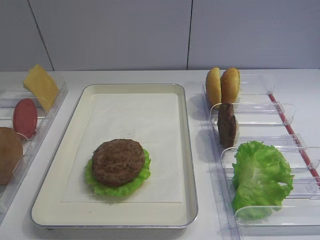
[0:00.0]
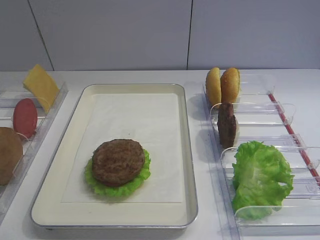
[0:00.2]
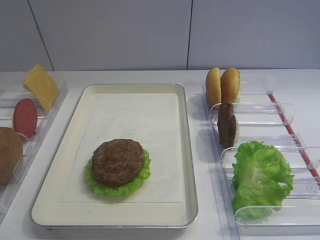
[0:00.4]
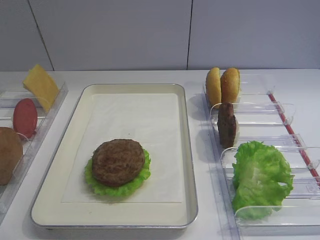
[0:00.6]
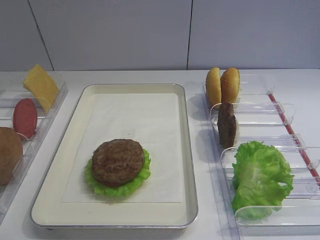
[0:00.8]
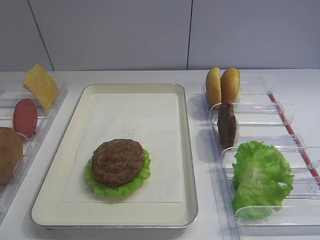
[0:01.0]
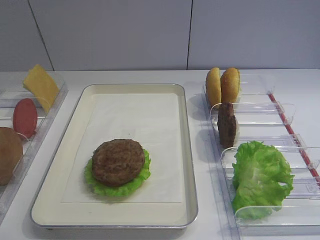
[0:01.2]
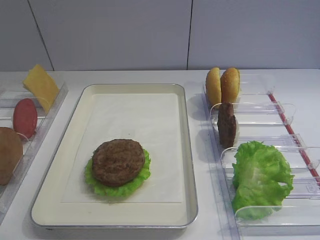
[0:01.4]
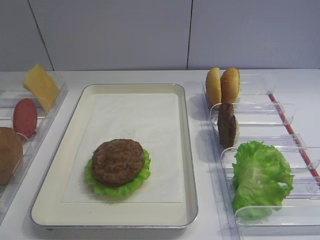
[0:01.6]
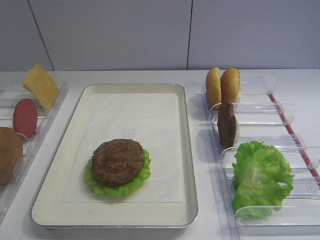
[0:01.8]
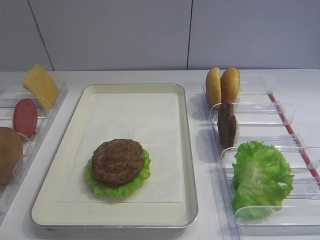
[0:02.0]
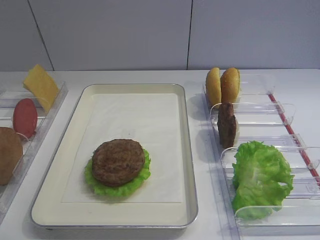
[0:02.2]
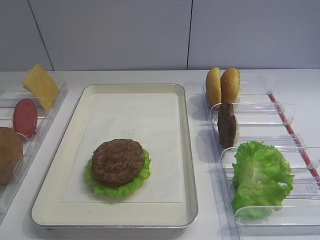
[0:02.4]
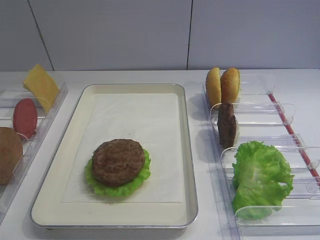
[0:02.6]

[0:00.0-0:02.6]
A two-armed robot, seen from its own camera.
0.0 to 2.6 s: Both grippers stay about where they are.

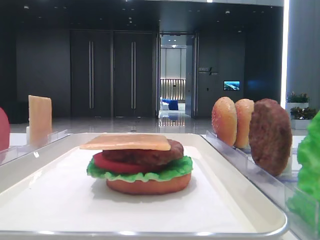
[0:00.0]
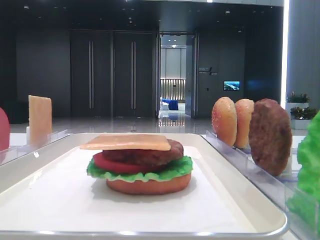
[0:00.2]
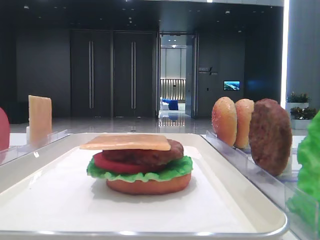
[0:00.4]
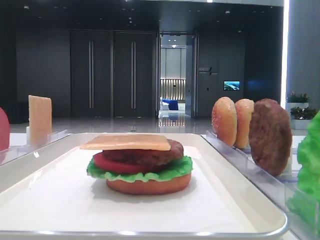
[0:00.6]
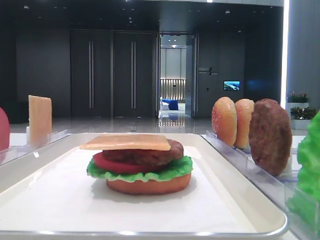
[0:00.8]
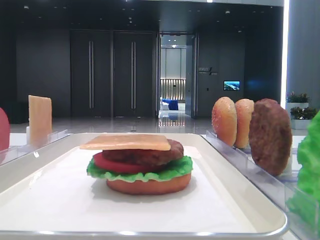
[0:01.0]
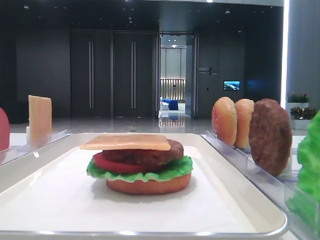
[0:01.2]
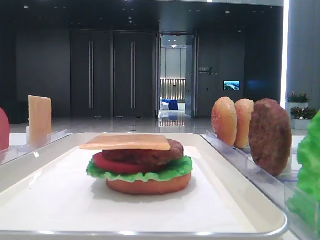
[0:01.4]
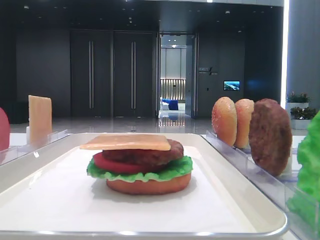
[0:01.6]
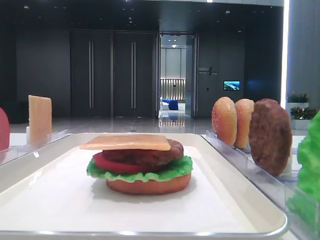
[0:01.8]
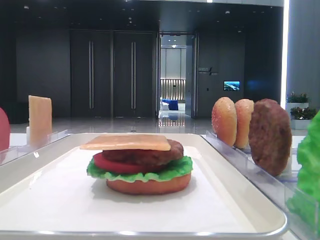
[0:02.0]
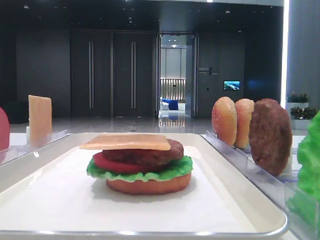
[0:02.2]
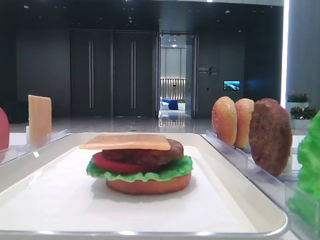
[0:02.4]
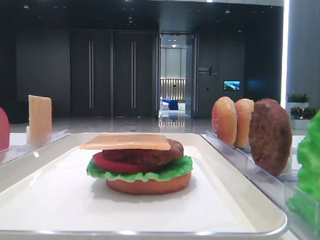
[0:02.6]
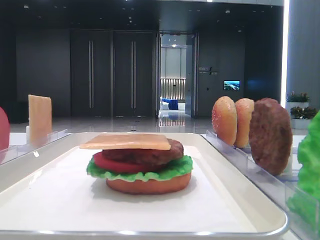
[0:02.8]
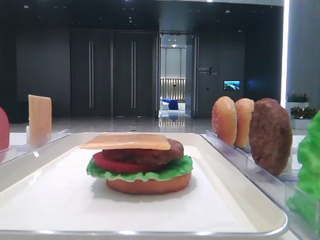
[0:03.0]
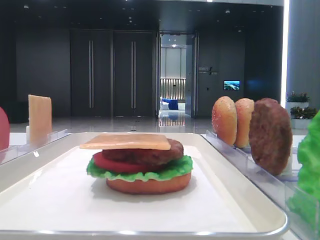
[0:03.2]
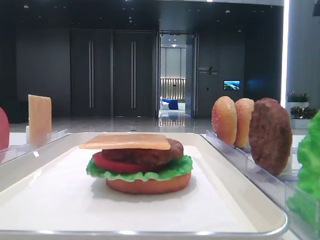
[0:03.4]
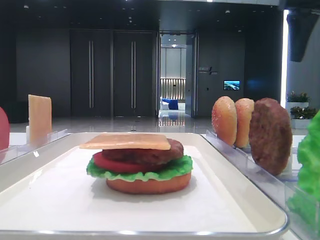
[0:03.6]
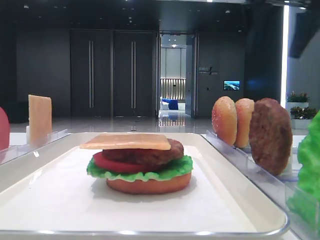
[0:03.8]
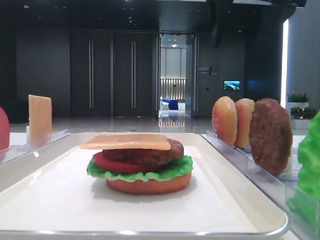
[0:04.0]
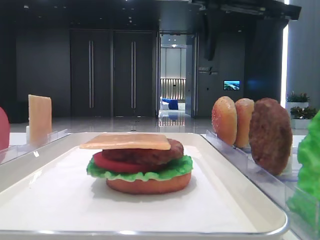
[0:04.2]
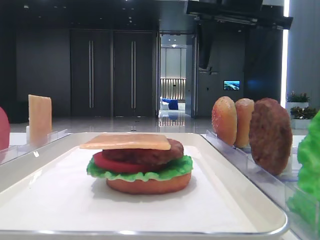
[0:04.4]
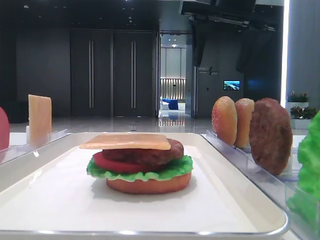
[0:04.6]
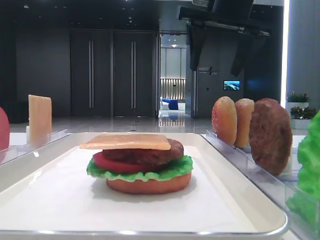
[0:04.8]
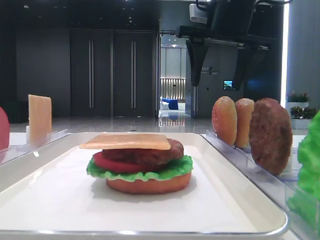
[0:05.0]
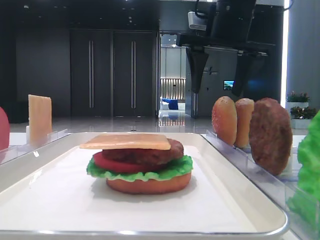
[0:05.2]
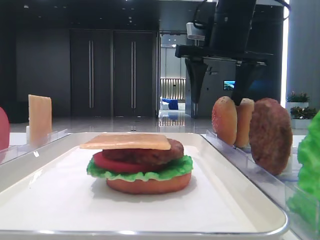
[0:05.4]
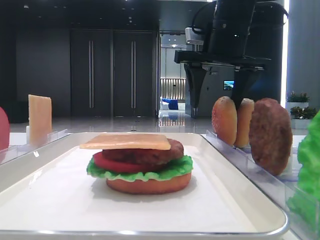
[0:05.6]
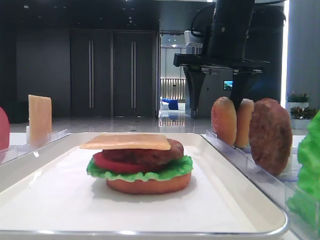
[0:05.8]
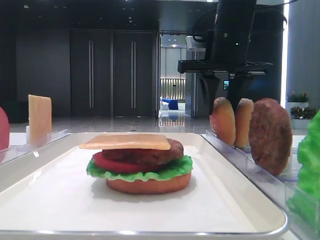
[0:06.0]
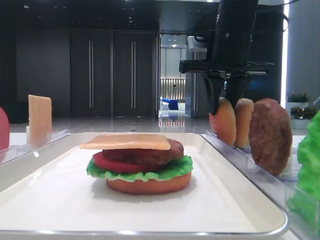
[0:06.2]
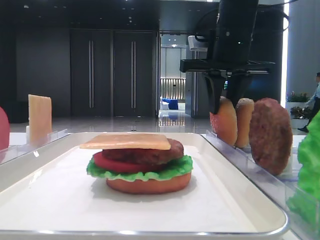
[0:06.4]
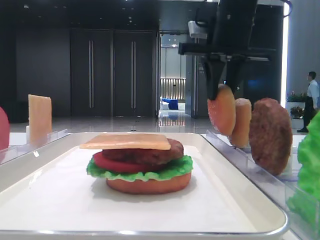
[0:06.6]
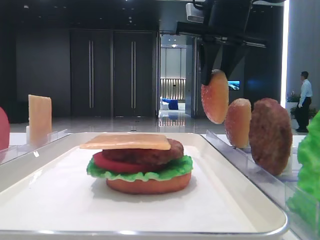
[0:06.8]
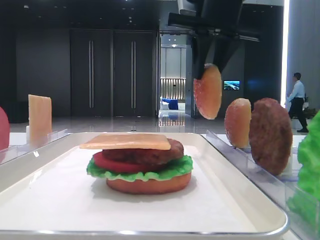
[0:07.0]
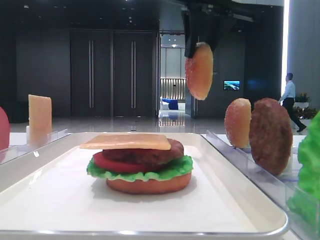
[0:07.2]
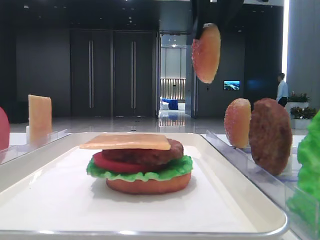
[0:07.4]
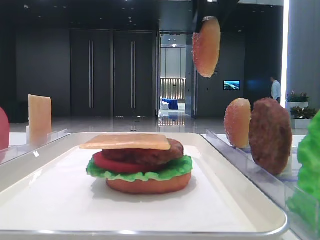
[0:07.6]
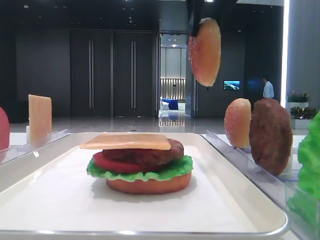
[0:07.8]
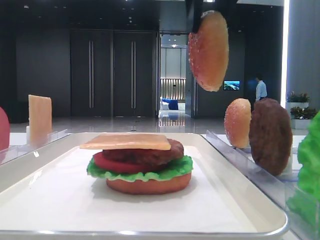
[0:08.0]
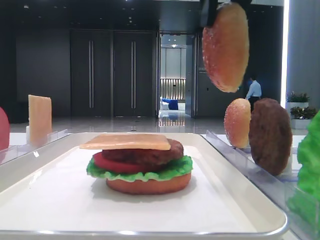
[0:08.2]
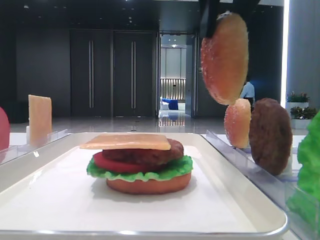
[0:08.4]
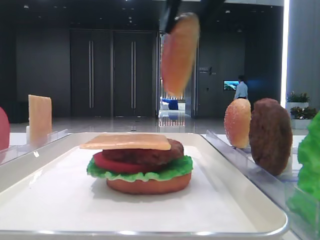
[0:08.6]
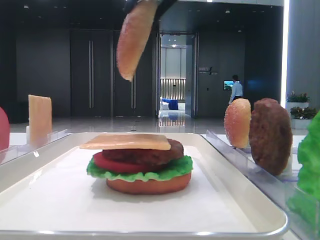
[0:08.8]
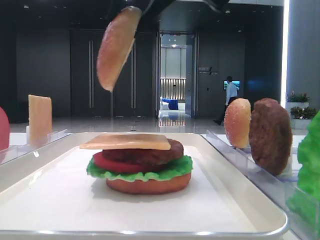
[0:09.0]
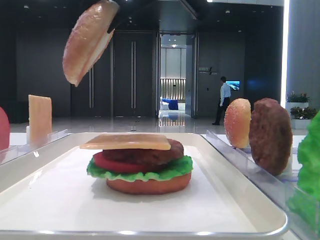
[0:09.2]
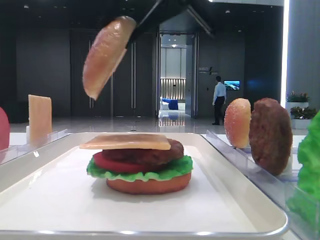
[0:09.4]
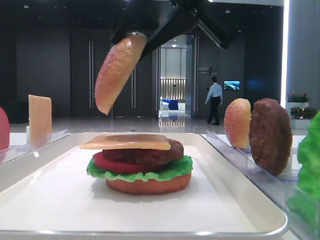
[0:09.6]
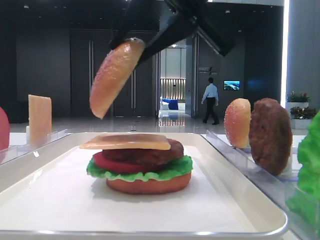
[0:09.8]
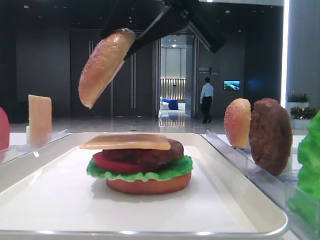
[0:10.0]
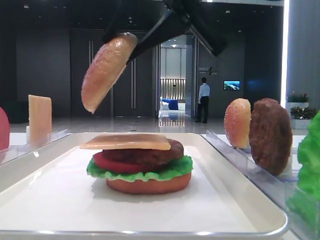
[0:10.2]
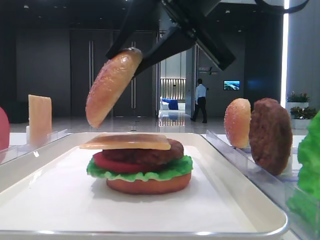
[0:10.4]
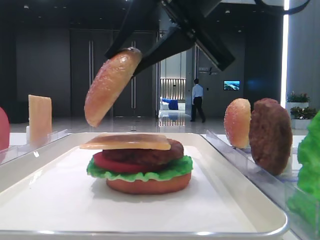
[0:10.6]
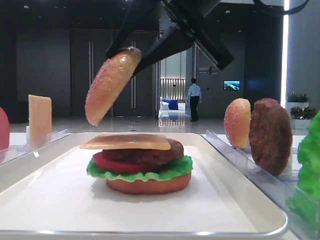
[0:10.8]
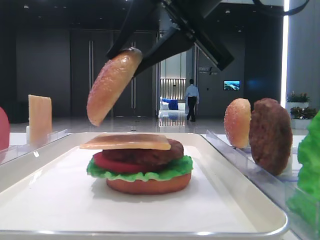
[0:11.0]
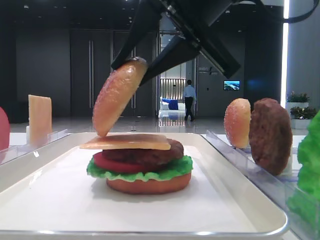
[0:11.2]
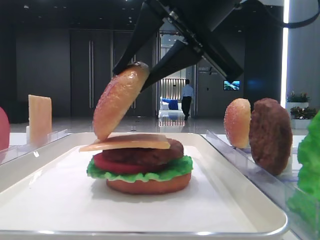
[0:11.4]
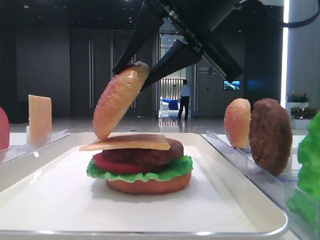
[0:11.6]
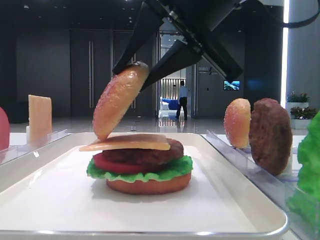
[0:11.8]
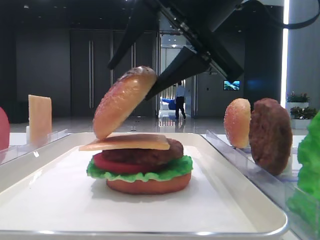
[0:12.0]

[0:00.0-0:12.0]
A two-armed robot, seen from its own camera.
Step, 0.0 to 6.2 s: Pick up the top bread slice with the right hand.
3.0 to 4.4 s: The right gripper shifts roughly 20 cm to the left.
4.4 to 6.0 s: The right gripper heads downward, covering about 5 cm, and closes its fingers.
6.0 to 7.6 s: The right gripper moves upward and backward, some 15 cm.
7.6 to 9.0 s: The right gripper shifts approximately 10 cm backward and to the left.
9.0 to 10.4 s: The right gripper is displaced downward by approximately 5 cm.
10.4 to 12.0 s: The right gripper opens up.

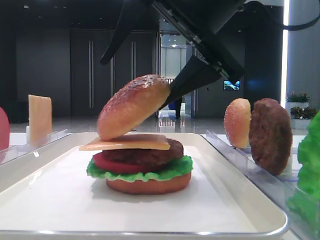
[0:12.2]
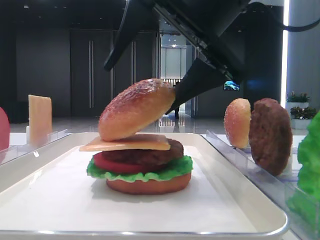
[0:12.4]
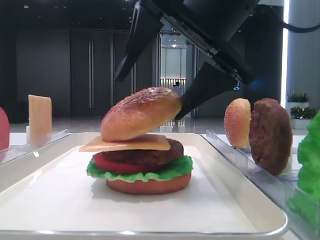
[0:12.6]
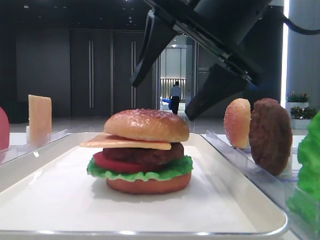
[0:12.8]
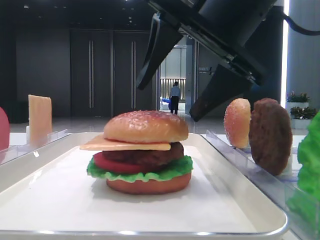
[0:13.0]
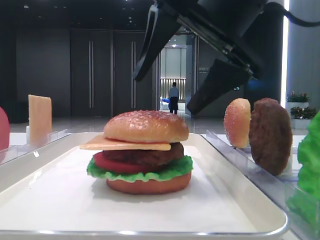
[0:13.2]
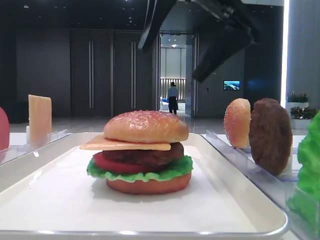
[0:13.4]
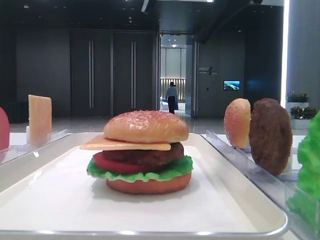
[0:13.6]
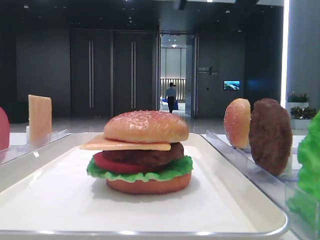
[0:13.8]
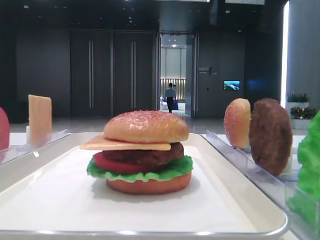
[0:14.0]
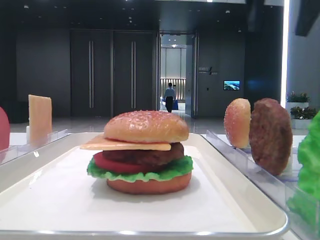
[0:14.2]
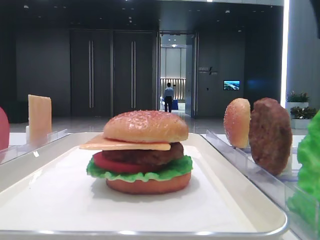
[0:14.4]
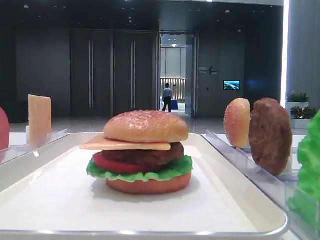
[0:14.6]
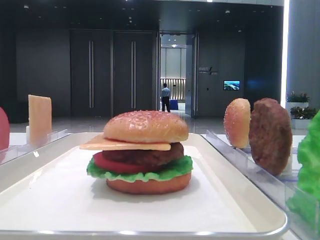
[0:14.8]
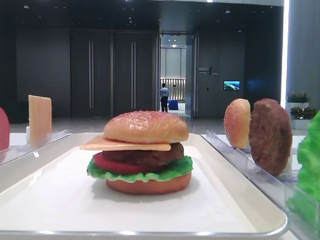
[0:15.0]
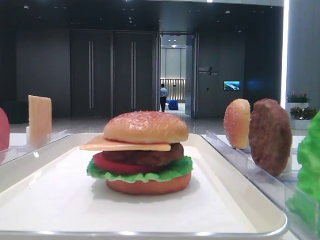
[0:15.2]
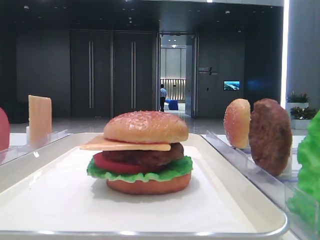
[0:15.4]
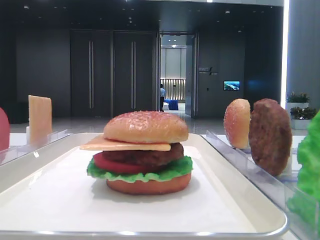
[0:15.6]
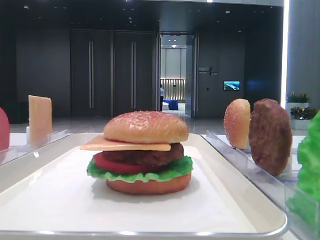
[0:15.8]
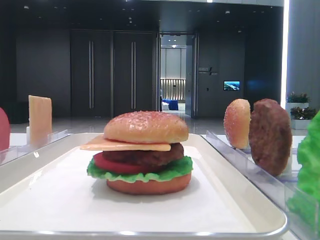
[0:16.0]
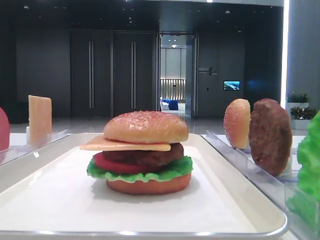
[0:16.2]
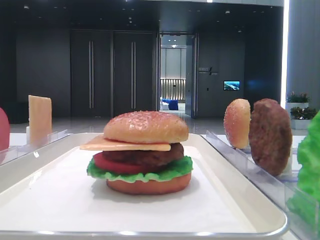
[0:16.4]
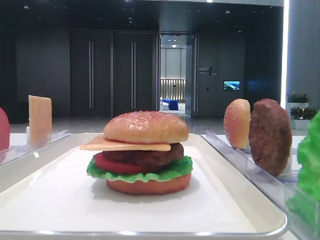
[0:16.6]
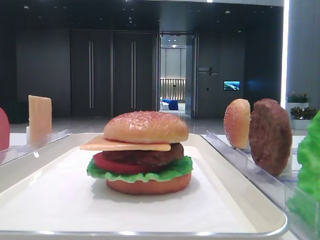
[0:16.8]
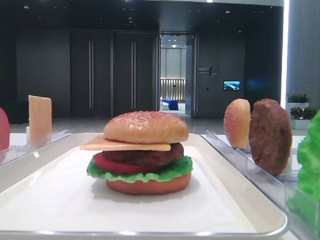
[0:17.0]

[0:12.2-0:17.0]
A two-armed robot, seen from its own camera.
12.2 to 13.8 s: The right gripper heads upward, covering approximately 10 cm.
13.8 to 15.4 s: The right gripper is displaced backward and to the right by some 30 cm.

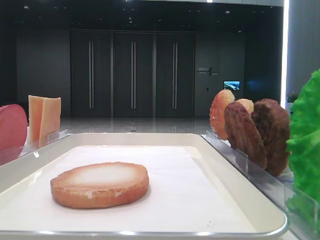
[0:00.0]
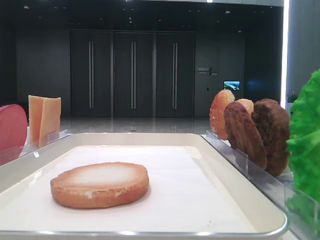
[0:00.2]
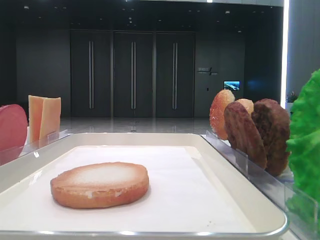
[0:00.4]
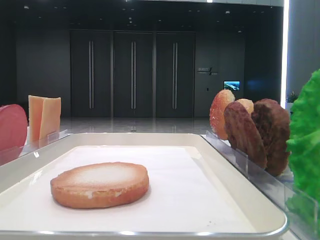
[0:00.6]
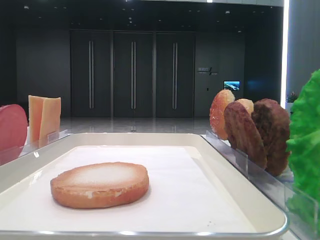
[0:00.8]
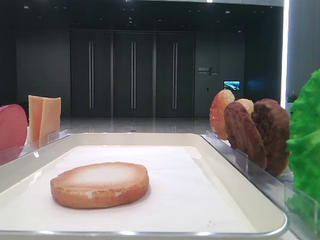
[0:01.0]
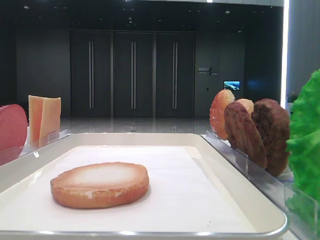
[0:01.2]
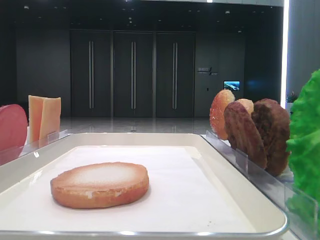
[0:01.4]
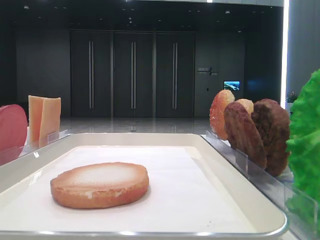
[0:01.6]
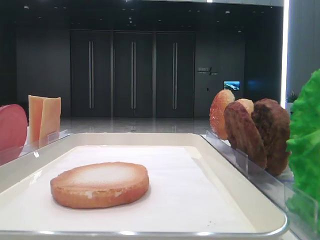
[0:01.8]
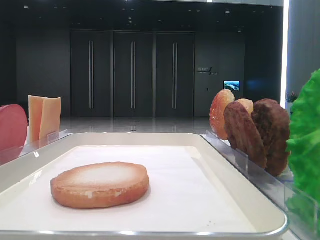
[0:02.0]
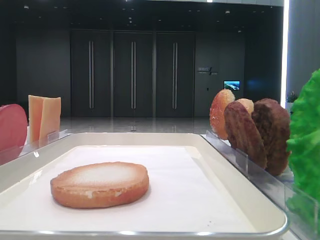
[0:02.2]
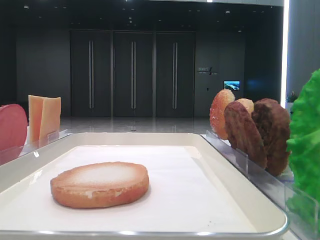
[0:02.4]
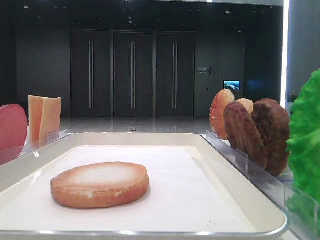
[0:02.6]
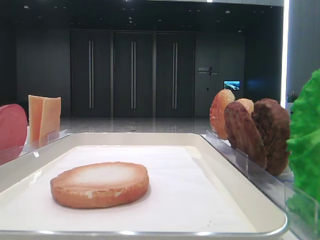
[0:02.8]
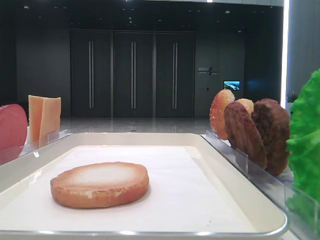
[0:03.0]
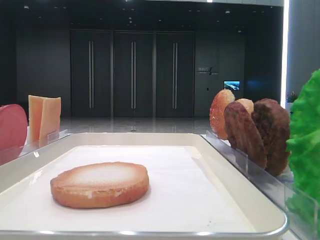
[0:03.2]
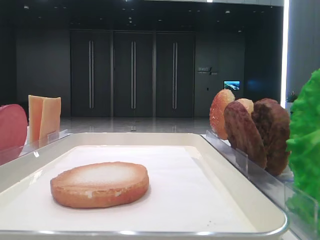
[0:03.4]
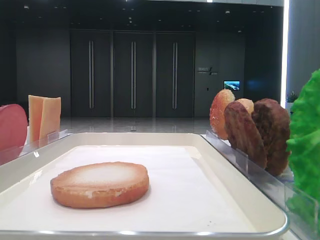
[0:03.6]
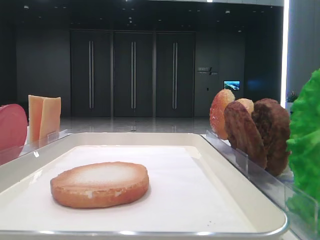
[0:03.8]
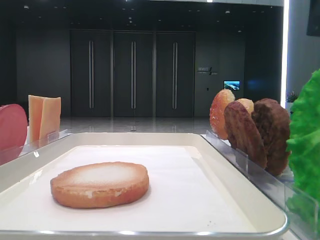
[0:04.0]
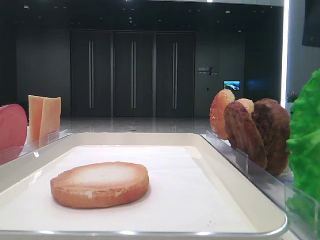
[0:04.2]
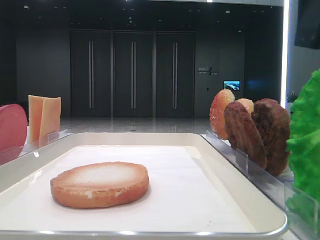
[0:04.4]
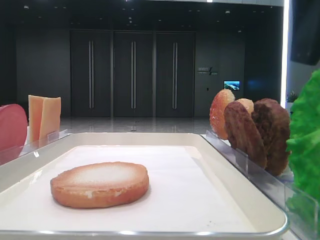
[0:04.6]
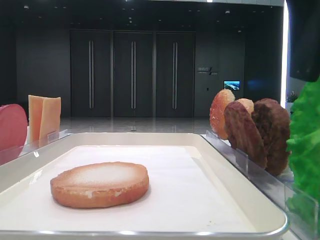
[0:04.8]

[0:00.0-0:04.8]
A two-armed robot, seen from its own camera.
3.2 to 4.8 s: The right gripper goes some 5 cm downward.
